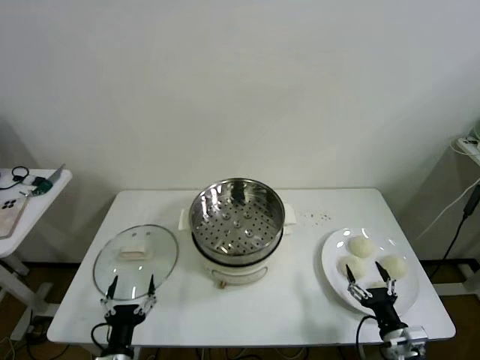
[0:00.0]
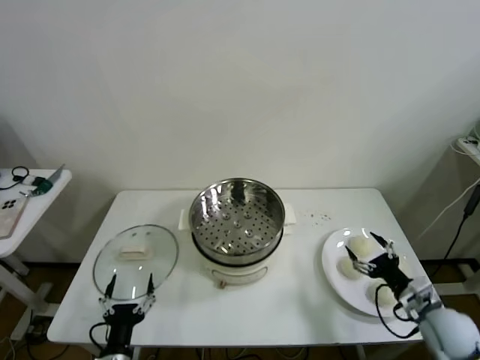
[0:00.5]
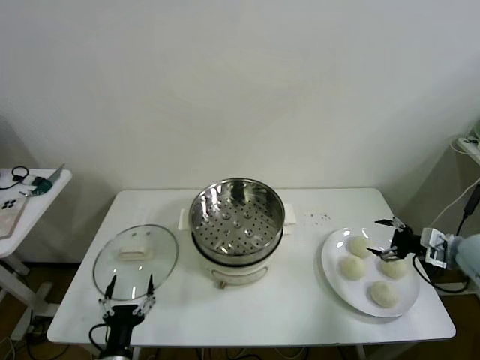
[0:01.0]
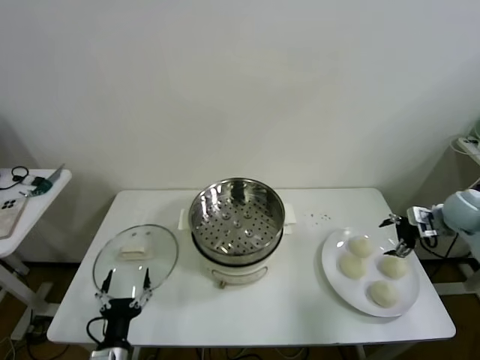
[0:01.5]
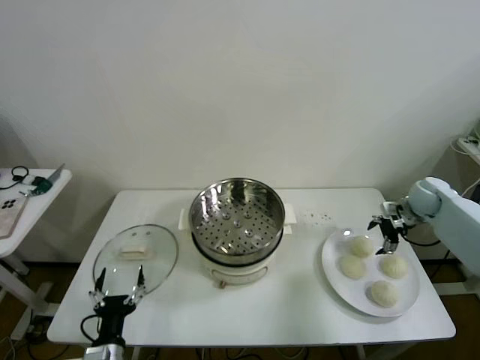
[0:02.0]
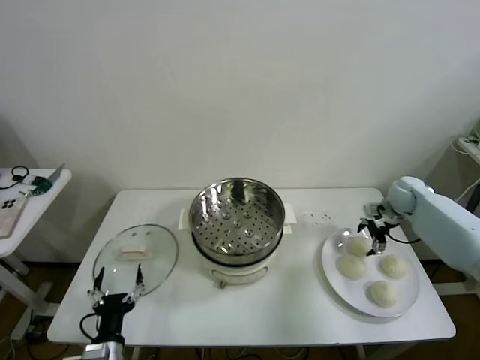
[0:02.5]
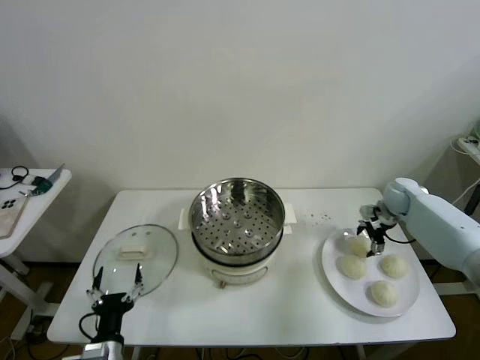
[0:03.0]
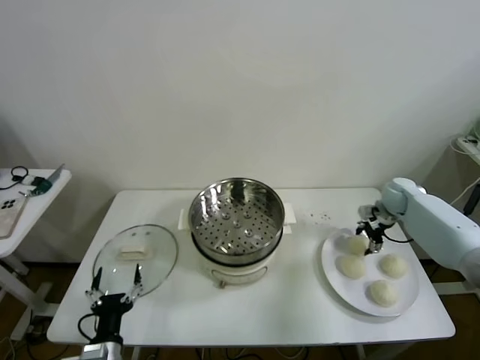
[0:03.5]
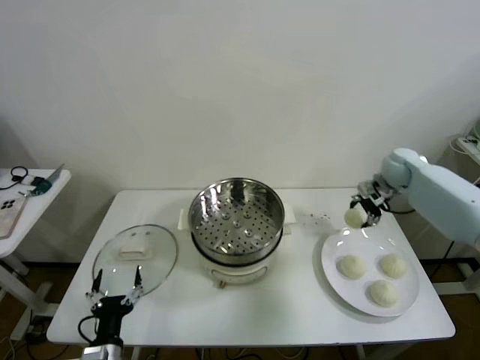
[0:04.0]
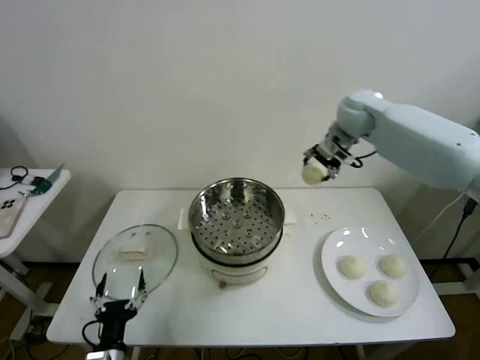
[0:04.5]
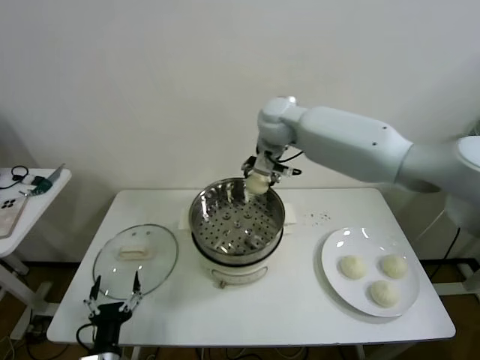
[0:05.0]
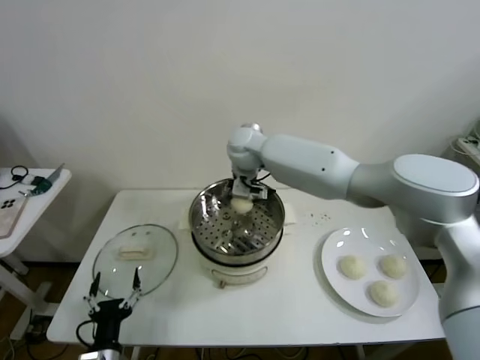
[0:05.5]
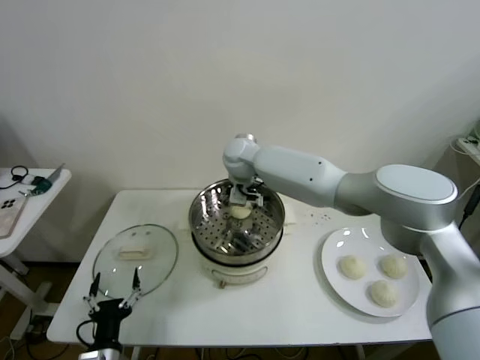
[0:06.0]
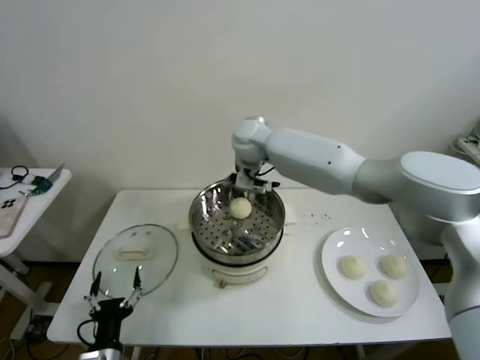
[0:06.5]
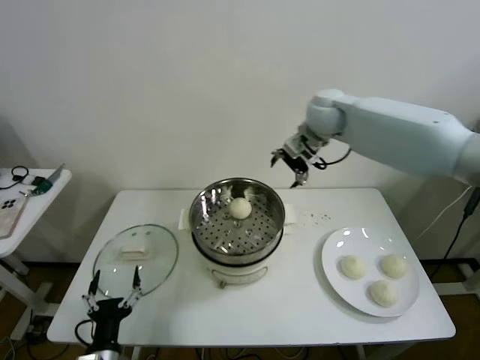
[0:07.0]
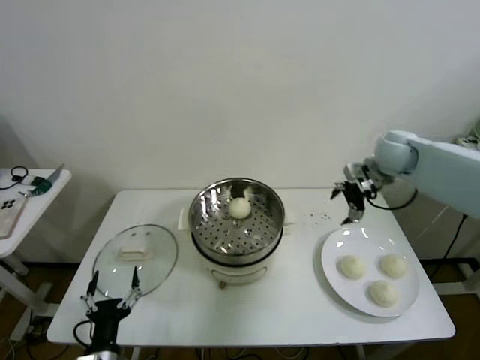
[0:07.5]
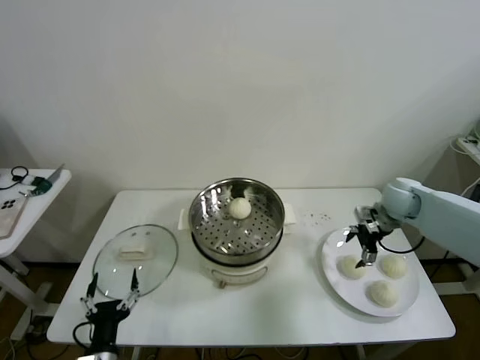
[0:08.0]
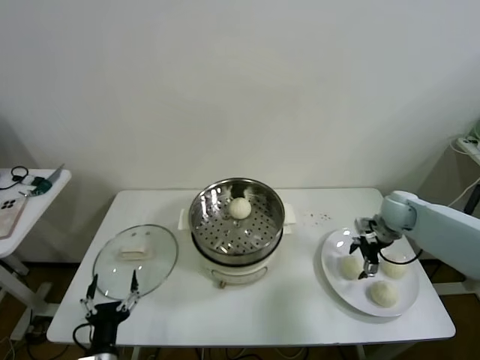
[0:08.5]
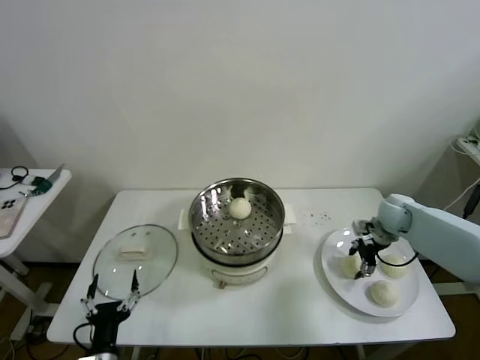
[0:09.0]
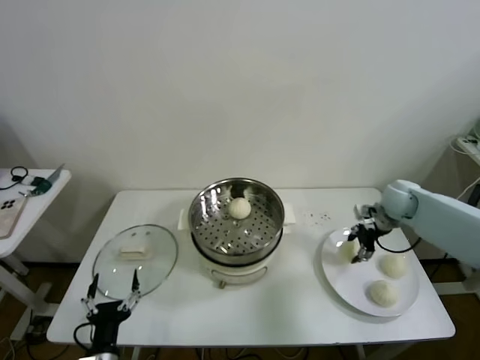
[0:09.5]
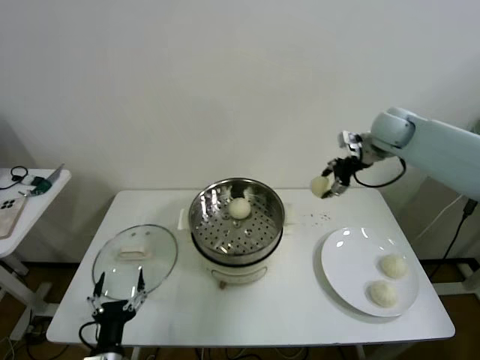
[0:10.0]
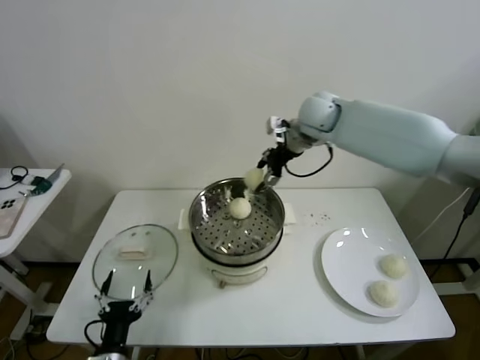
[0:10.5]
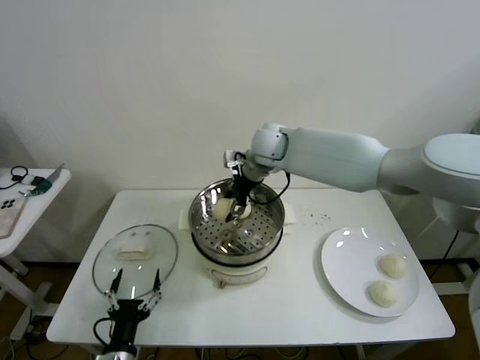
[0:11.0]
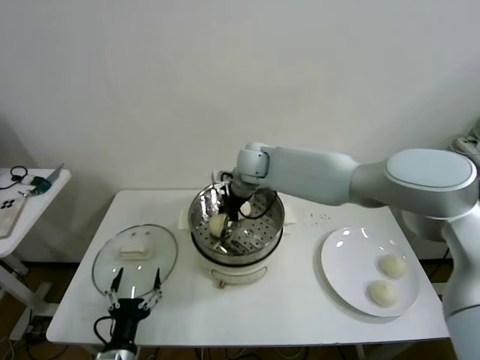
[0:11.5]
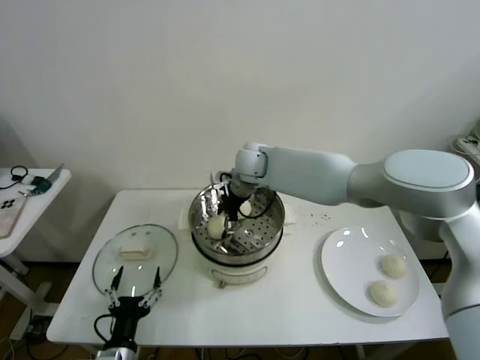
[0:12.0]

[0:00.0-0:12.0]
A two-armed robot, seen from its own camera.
Task of the whole recording: take steamed baozi put them in steamer then cover it.
Step, 0:00.0 to 0:03.0: Grasp the baozi in the plate with right gripper.
Step, 0:03.5 to 0:06.0: Place the baozi on the steamer with right gripper.
Step, 0:06.5 to 0:09.0: Grasp the baozi in the plate with right gripper.
Step, 0:09.5 to 0:12.0: Place the baozi on the steamer with right gripper.
0:02.0 to 0:04.0: The right gripper shifts about 15 cm upward, to the left and forward, and closes its fingers.
0:04.0 to 0:06.0: The right gripper travels to the left by roughly 40 cm, and opens up.
0:06.0 to 0:08.0: The right gripper moves to the right, roughly 40 cm.
0:08.0 to 0:10.0: The right gripper shifts some 20 cm upward, forward and to the left, and closes.
0:10.0 to 0:12.0: The right gripper shifts approximately 30 cm to the left, and opens.

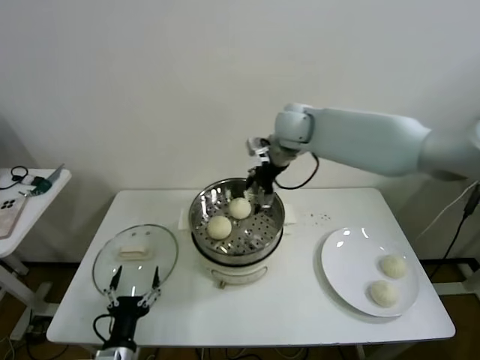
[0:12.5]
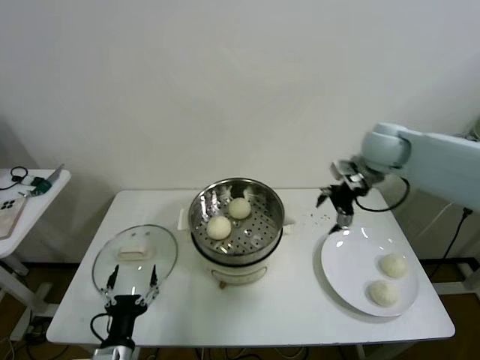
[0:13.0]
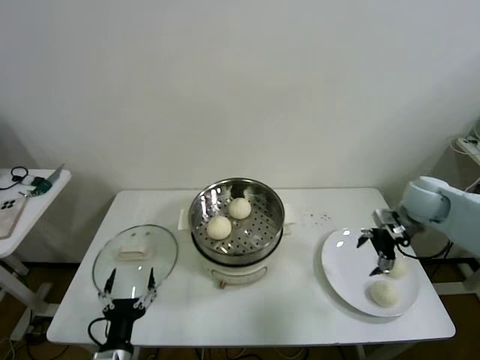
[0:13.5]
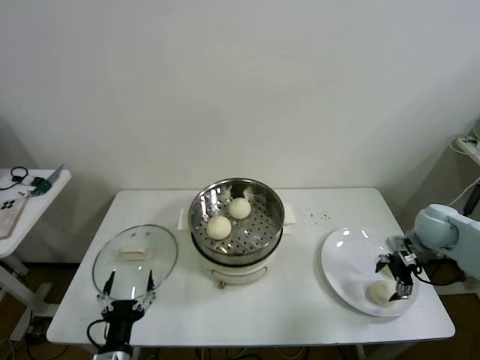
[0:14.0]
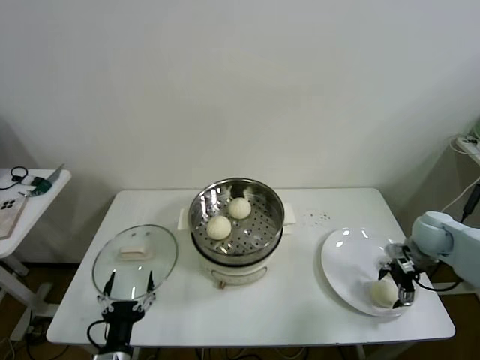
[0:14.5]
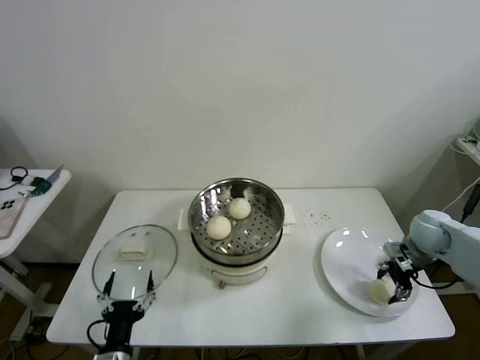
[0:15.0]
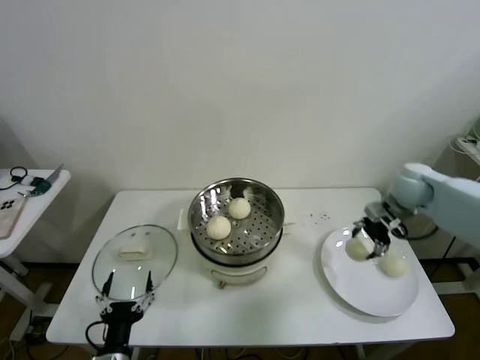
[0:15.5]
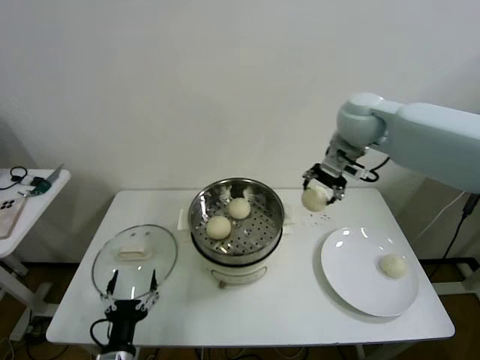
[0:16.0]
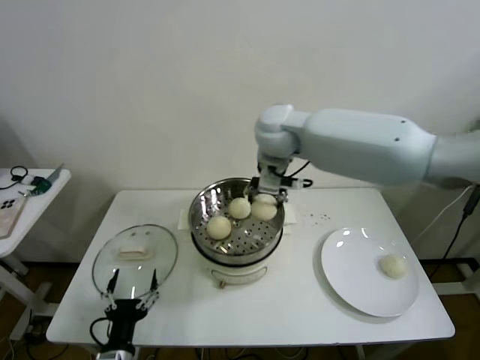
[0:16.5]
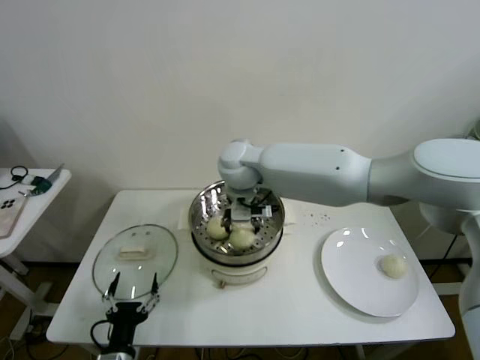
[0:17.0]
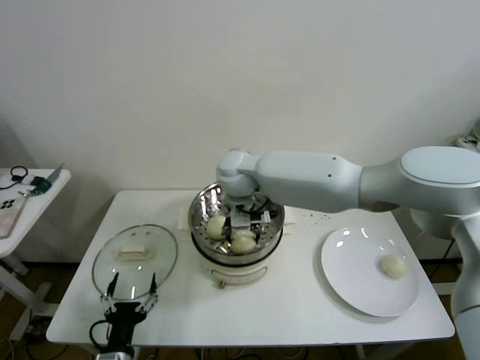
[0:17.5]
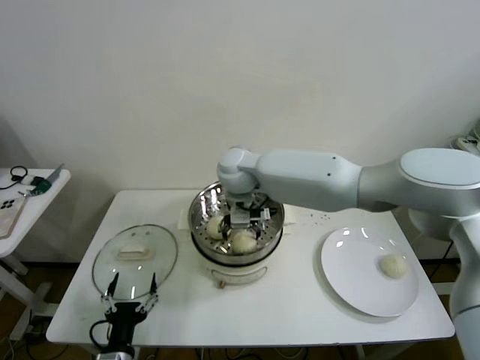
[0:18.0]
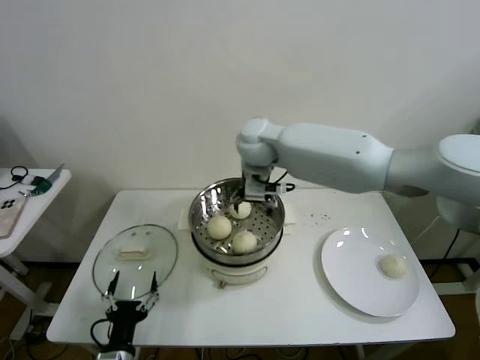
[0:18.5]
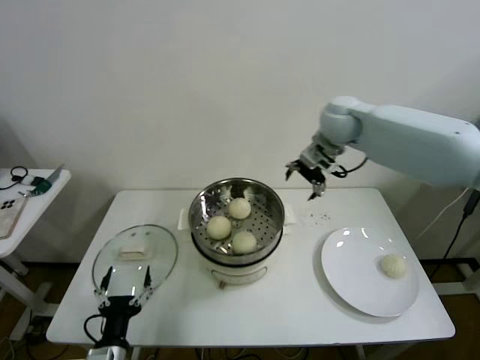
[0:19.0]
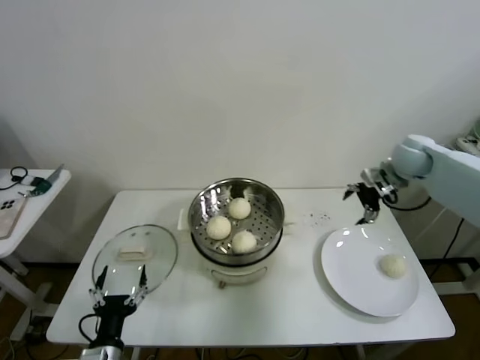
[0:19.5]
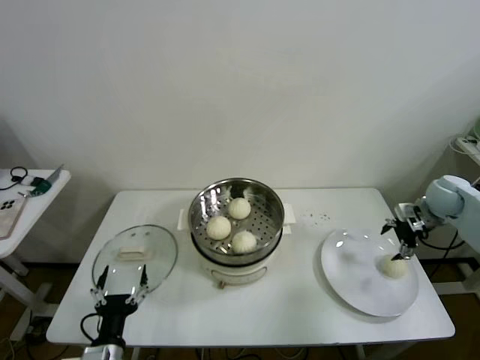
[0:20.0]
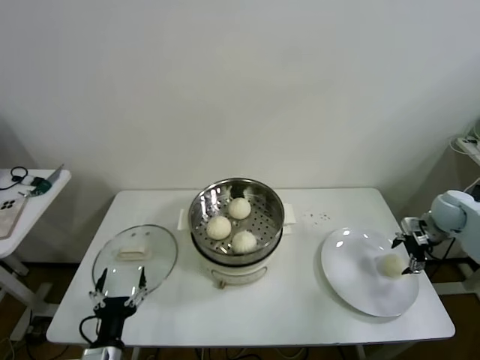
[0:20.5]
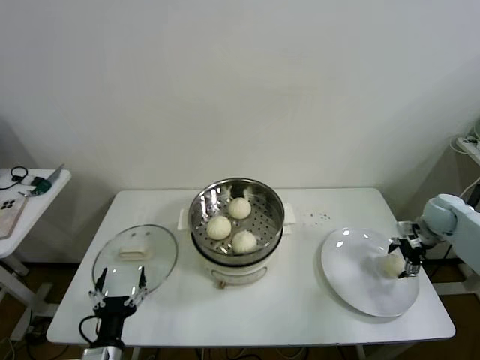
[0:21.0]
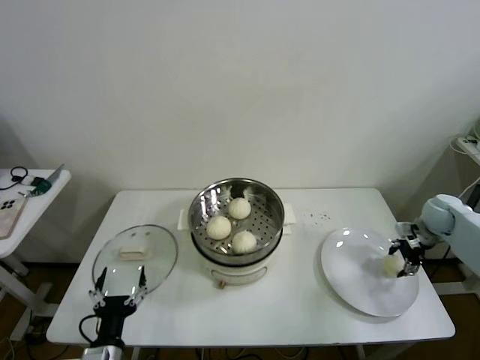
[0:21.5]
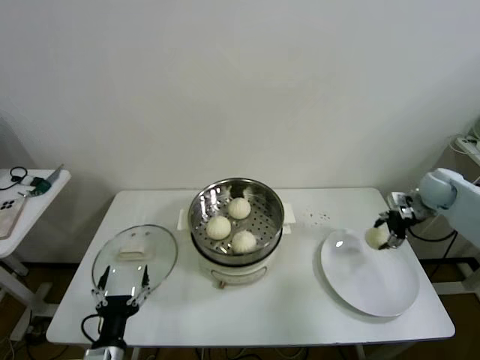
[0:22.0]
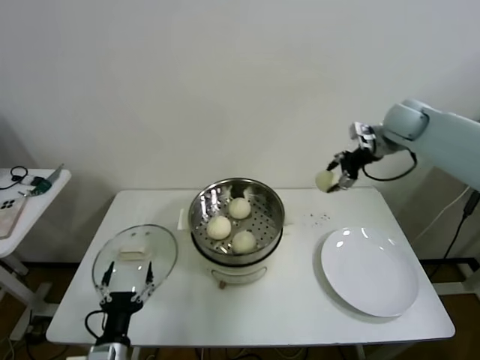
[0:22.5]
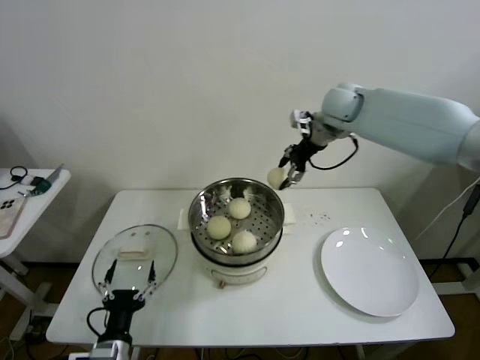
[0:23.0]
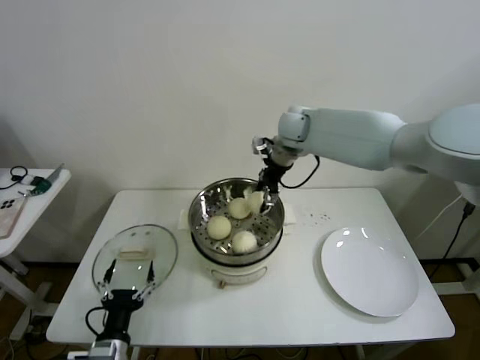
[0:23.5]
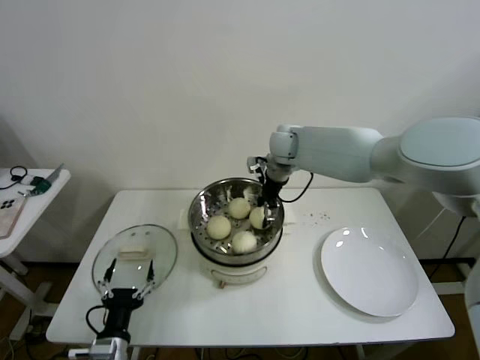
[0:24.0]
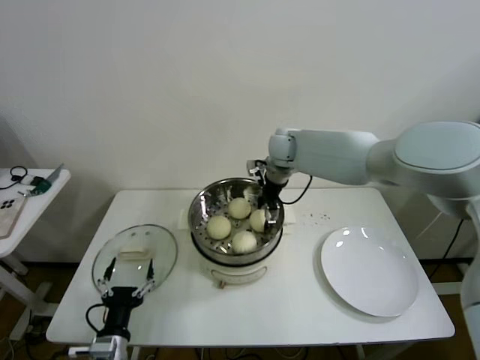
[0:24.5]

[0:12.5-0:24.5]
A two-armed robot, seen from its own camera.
Task of the whole recording: take steamed baozi put them in steamer then cover it.
Step, 0:12.5 to 0:14.5: Grasp the baozi in the plate with right gripper.
Step, 0:15.0 to 0:17.5: Place the baozi on the steamer with right gripper.
Step, 0:18.0 to 0:21.0: Grasp the baozi in the plate with right gripper.
Step, 0:21.5 to 0:24.0: Place the baozi on the steamer with right gripper.
0:12.5 to 0:14.5: The right gripper is displaced to the right, downward and backward by roughly 40 cm.
0:14.5 to 0:16.5: The right gripper heads to the left and upward, covering some 50 cm, and closes up.
0:16.5 to 0:18.5: The right gripper goes downward and returns, approximately 10 cm each way, and opens its fingers.
0:18.5 to 0:20.5: The right gripper moves to the right, some 50 cm.
0:20.5 to 0:22.5: The right gripper shifts approximately 30 cm upward, to the left and forward, and closes up.
0:22.5 to 0:24.5: The right gripper is displaced to the left by roughly 25 cm, and opens up.

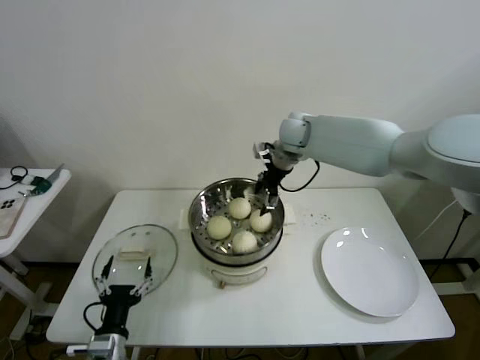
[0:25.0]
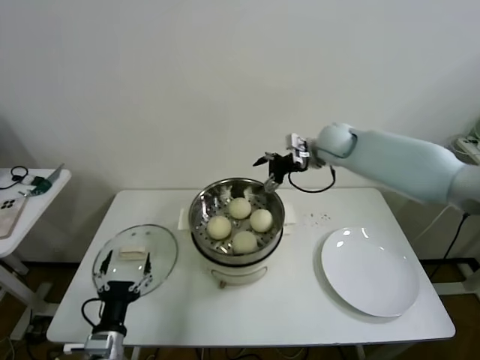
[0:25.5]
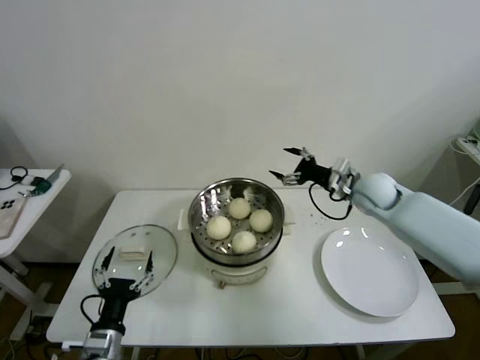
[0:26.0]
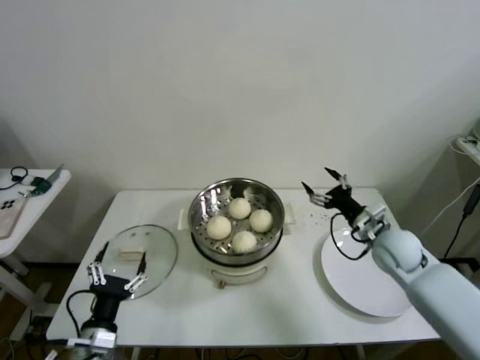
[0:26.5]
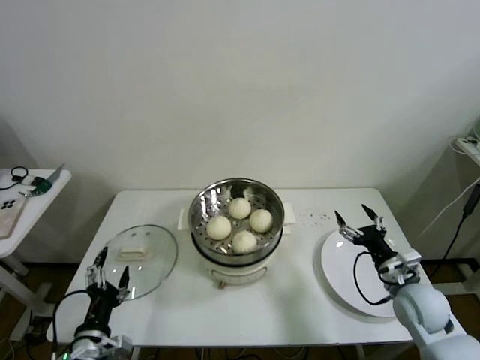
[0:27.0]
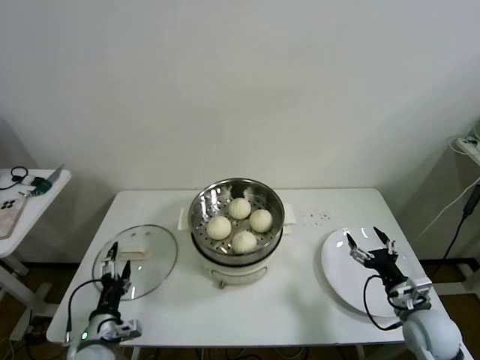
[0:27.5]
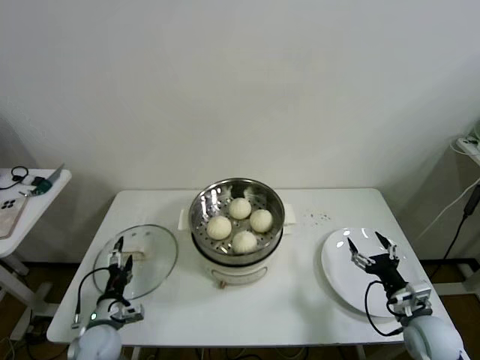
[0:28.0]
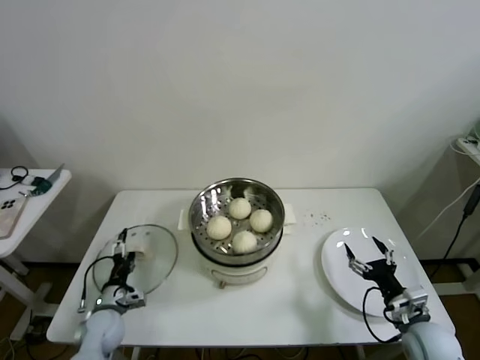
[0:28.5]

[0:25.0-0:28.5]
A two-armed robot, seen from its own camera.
Task of the whole recording: take steamed baozi put them in steamer then cover it.
0:25.0 to 0:27.0: The right gripper goes roughly 50 cm backward, downward and to the right.
0:27.0 to 0:28.5: The right gripper is displaced backward by some 5 cm. The left gripper is displaced forward and downward by about 20 cm.
